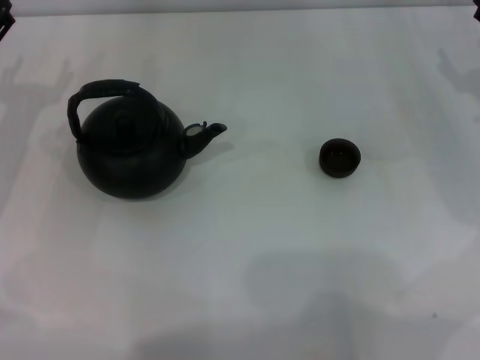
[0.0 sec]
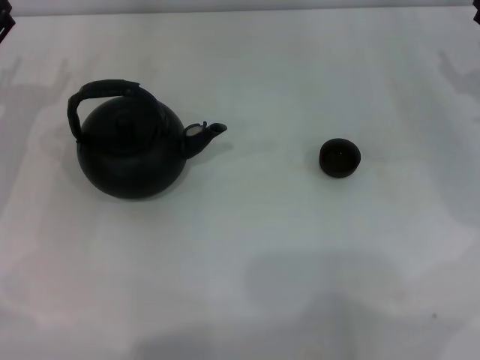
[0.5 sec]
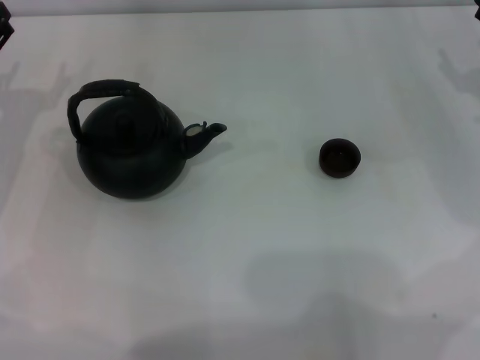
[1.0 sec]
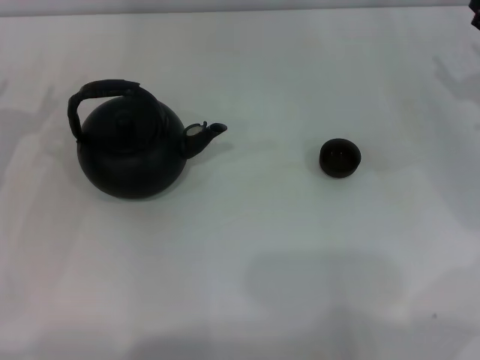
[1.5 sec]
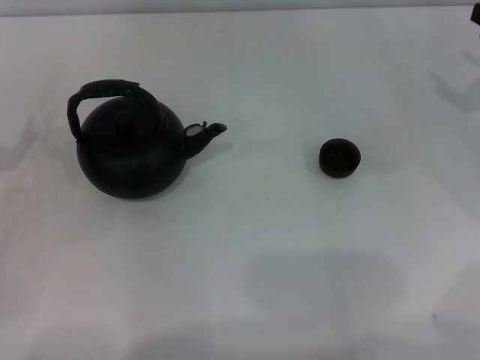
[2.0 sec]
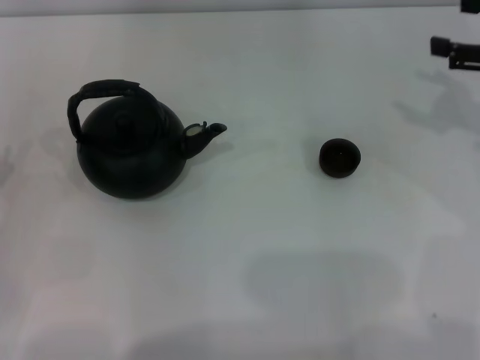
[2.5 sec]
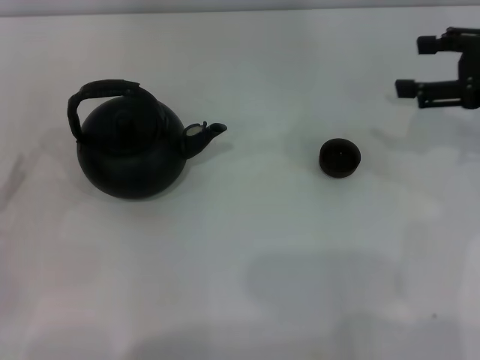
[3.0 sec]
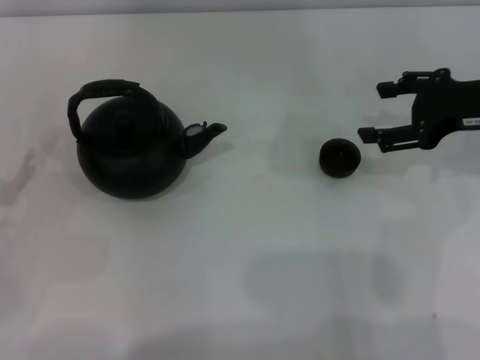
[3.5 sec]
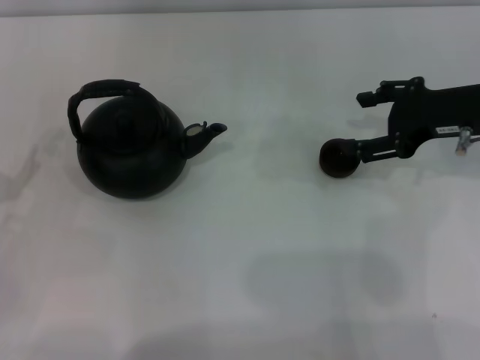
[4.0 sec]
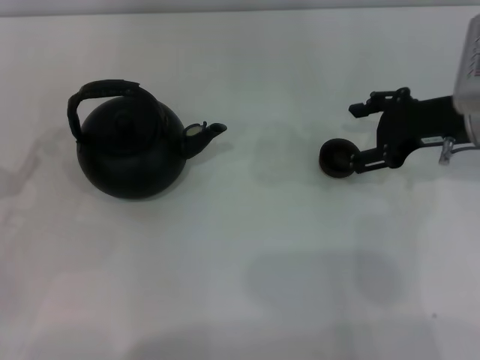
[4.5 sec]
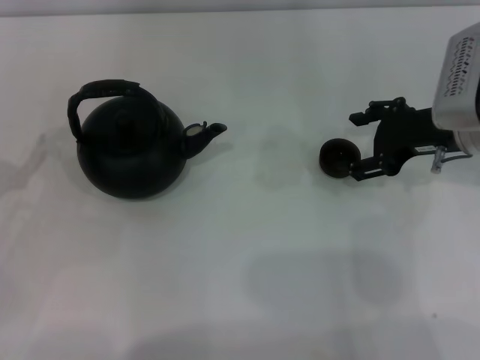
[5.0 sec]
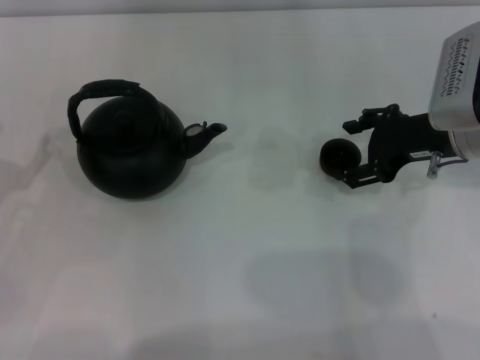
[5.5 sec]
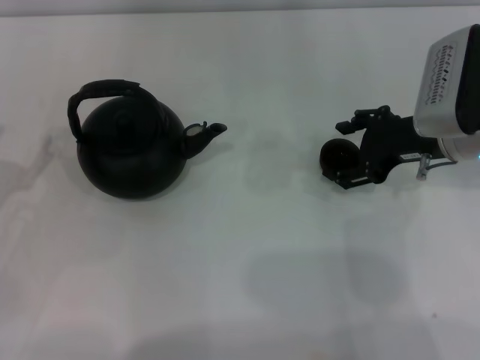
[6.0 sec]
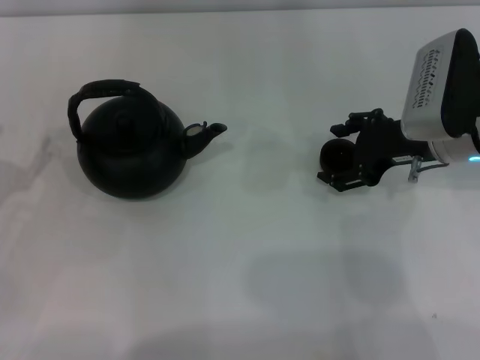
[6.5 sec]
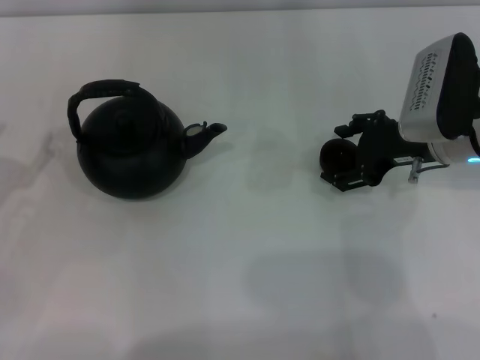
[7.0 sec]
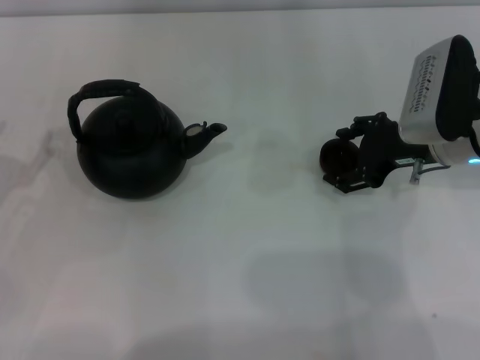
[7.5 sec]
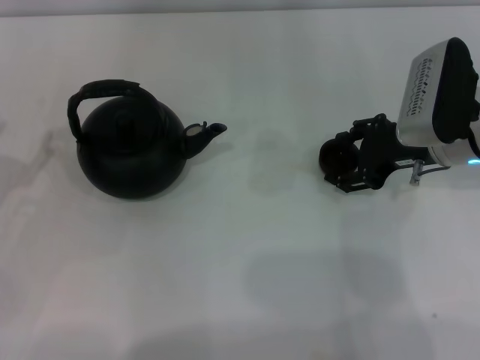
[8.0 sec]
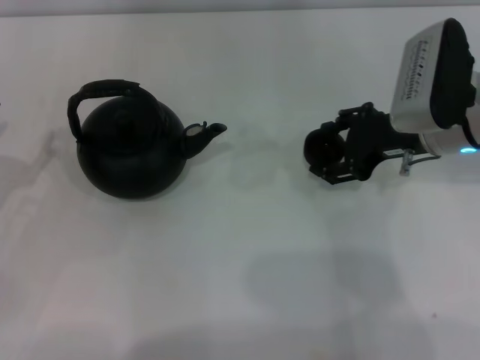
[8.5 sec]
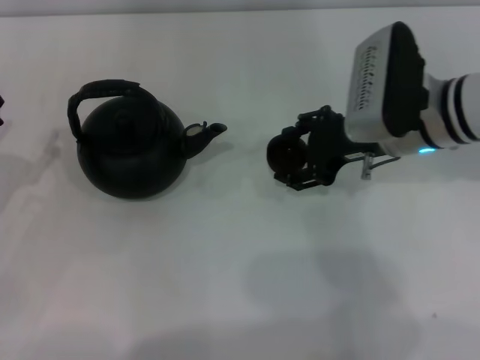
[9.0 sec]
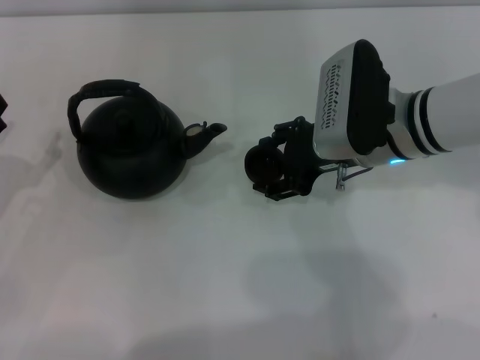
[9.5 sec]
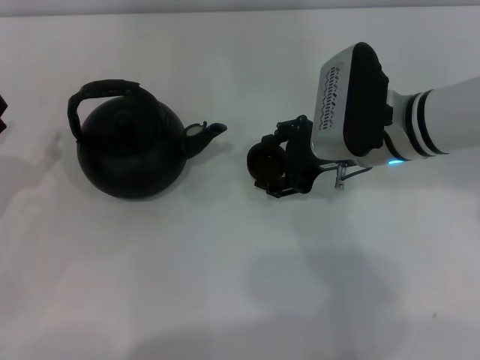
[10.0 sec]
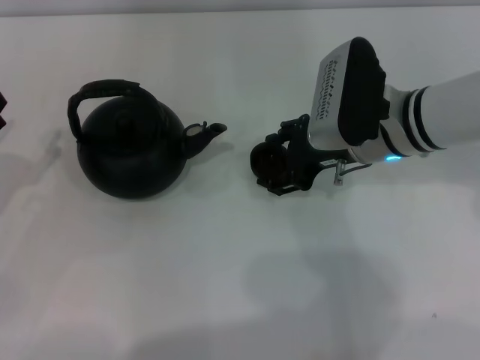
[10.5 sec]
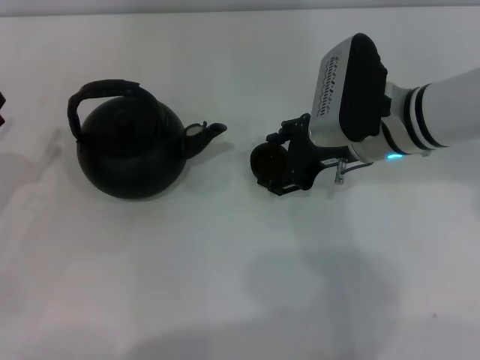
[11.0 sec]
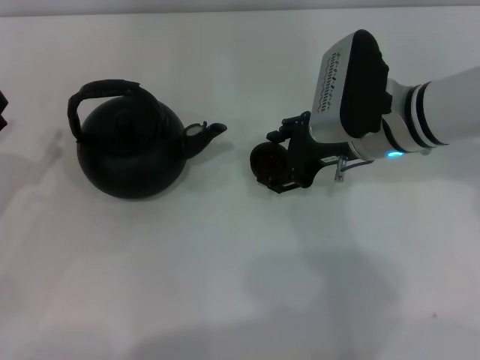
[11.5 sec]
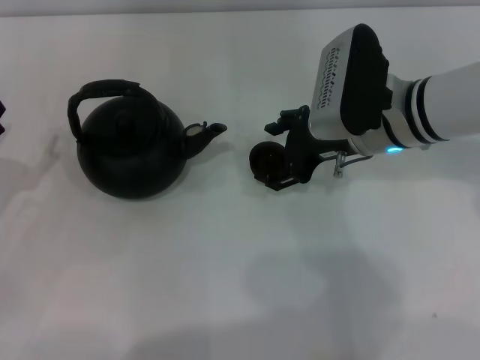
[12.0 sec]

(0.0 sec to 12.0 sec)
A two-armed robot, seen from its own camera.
Task of the whole recording: Grasp the handle of the teapot with one hand and pour tea into the teacup.
Step, 0.0 sec - 8.0 sec: Pick up the teacup with the right gripper.
2.0 sec - 4.0 sec: The right gripper heads to the left, covering approximately 10 cm.
4.0 sec - 8.0 sec: The grippers make only small movements.
8.0 sec - 10.0 sec: The right gripper travels to the left by roughly 10 cm.
10.0 sec - 12.0 sec: Neither gripper changes place.

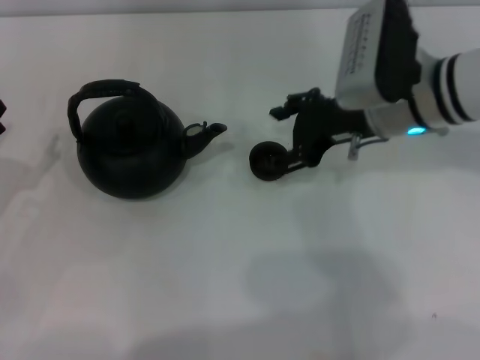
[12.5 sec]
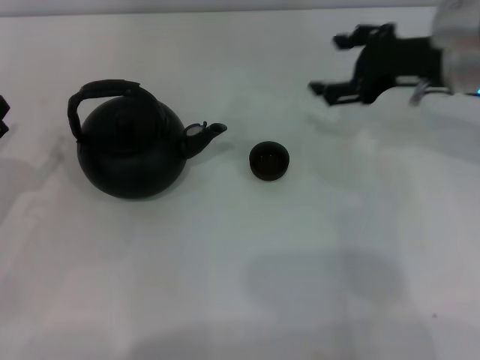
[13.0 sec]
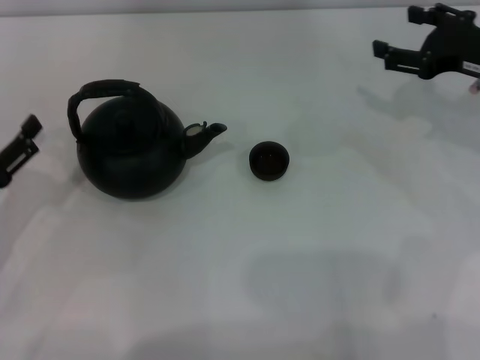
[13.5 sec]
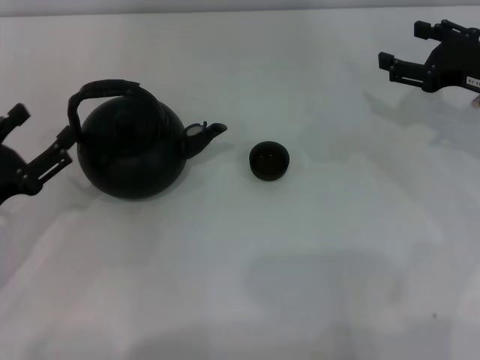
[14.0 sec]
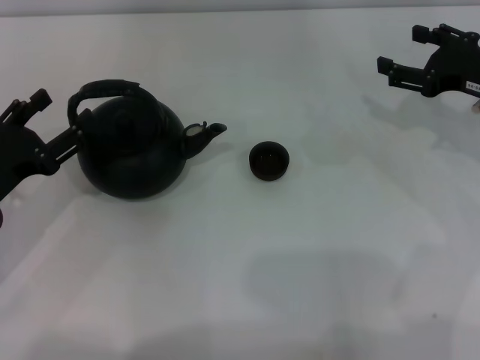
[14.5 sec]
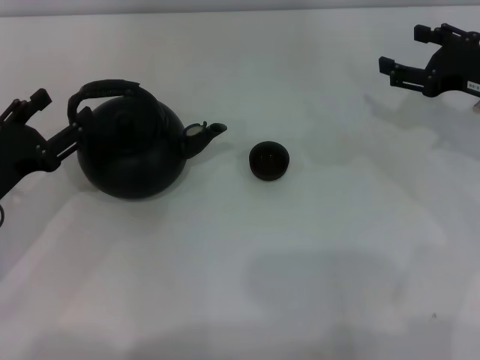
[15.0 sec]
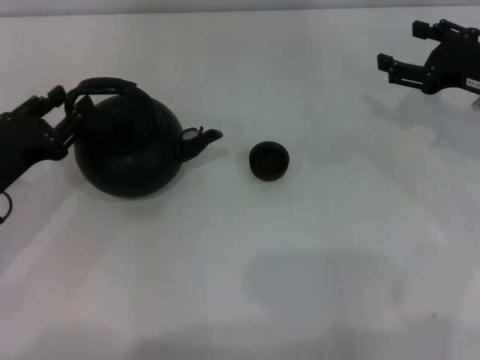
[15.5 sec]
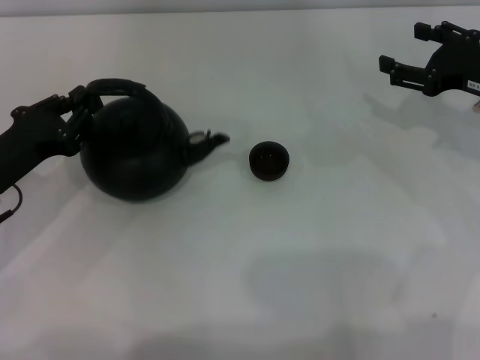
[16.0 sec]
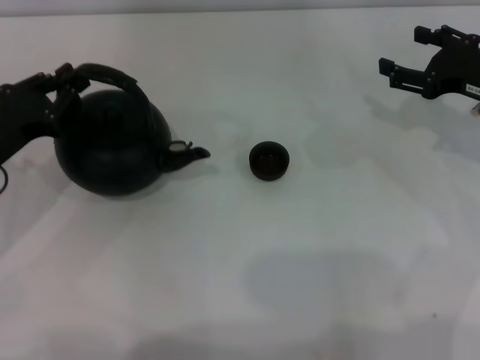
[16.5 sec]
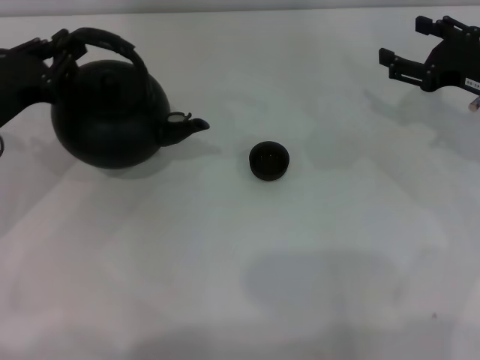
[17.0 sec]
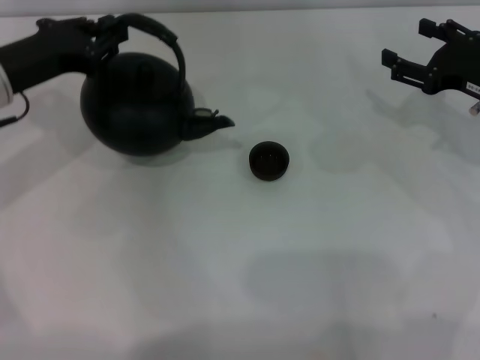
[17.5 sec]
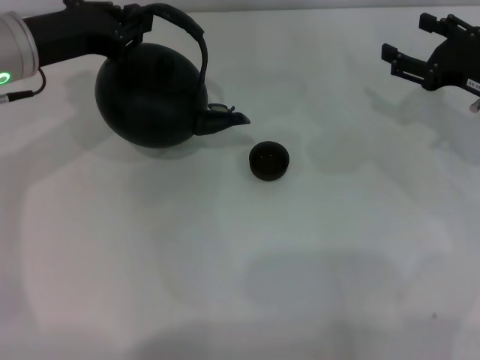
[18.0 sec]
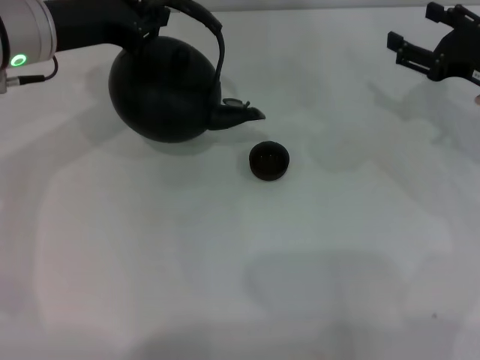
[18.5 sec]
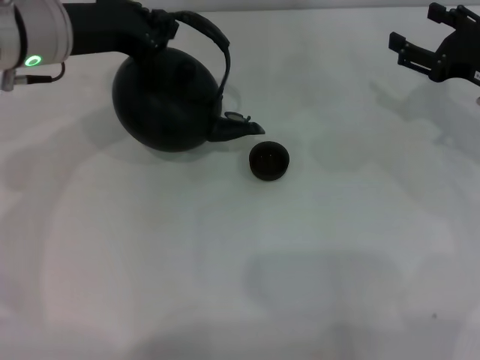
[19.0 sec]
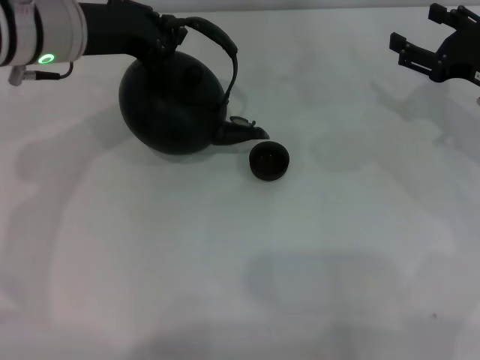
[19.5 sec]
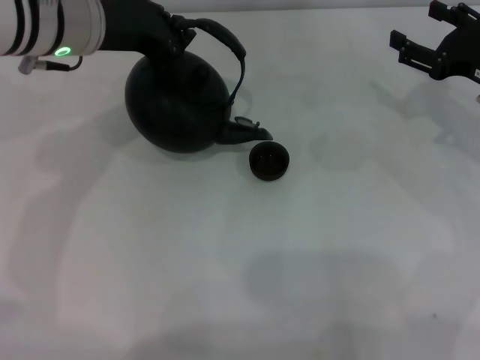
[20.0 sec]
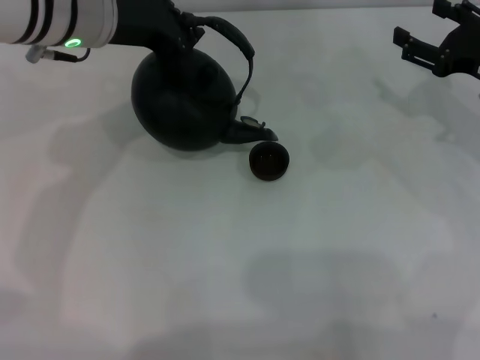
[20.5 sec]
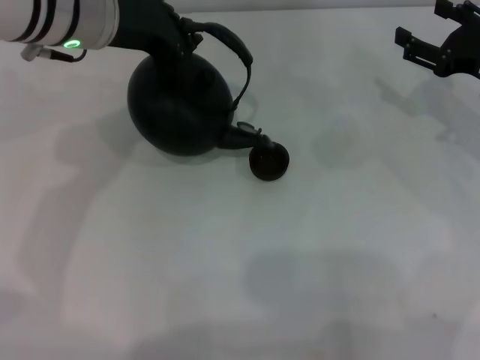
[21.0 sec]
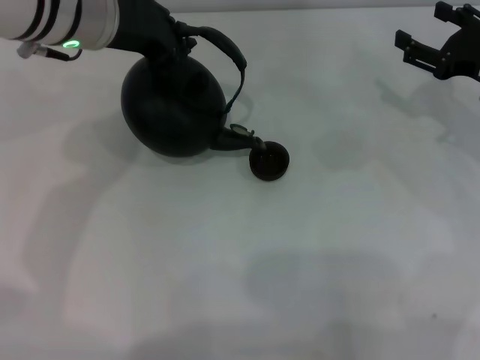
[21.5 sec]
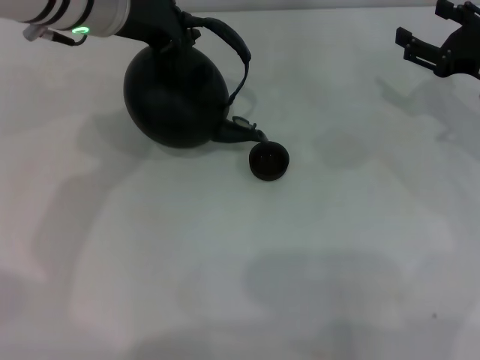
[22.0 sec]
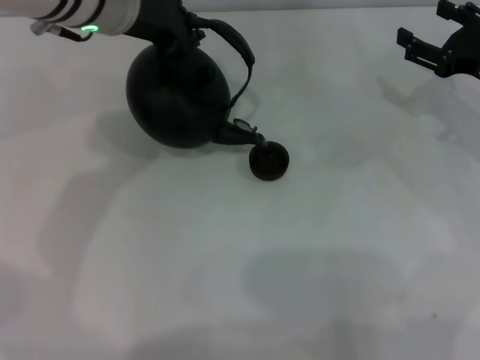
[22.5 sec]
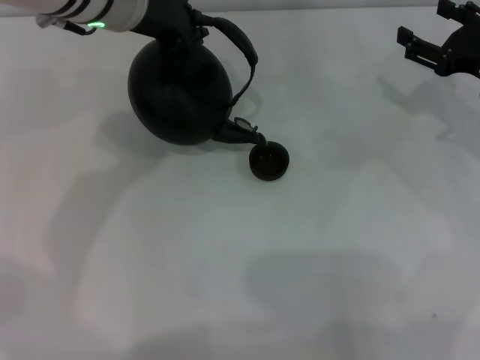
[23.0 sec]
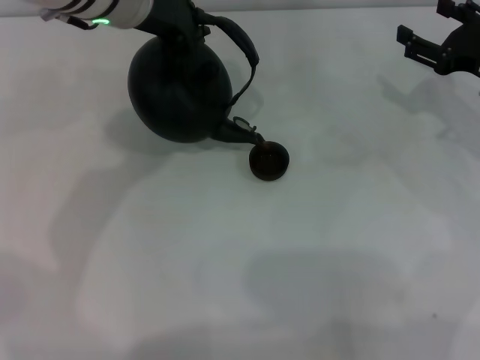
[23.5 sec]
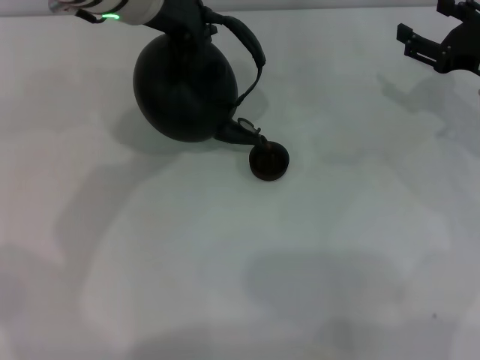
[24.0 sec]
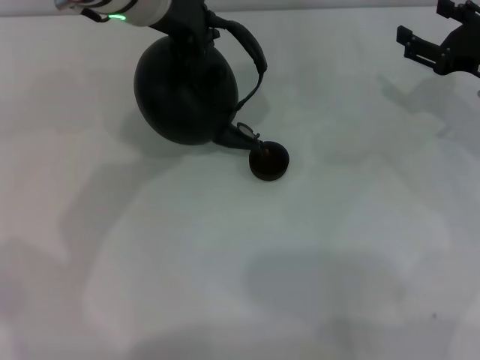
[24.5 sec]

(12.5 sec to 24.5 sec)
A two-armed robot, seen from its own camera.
Task of the whole recording: Grasp the handle of the teapot with one hand and pour tea into the teacup.
Step, 13.0 sec - 17.0 sec: Pick up the teapot with the left gripper.
12.5 sec - 14.5 sec: The right gripper moves to the right, roughly 15 cm.
14.5 sec - 16.5 sec: The left gripper closes its fingers.
16.5 sec - 18.5 sec: The left gripper travels upward, forward and to the right by approximately 15 cm.
18.5 sec - 20.5 sec: The left gripper moves to the right, about 5 cm.
20.5 sec - 22.5 sec: The grippers stay close to where they were, moving slightly.
22.5 sec - 24.5 sec: There are only small adjustments of the grippers.

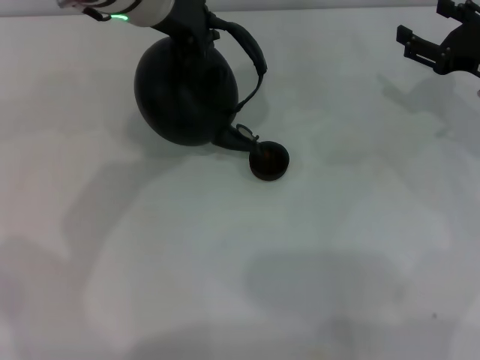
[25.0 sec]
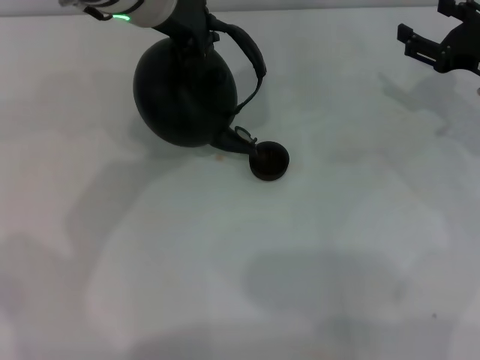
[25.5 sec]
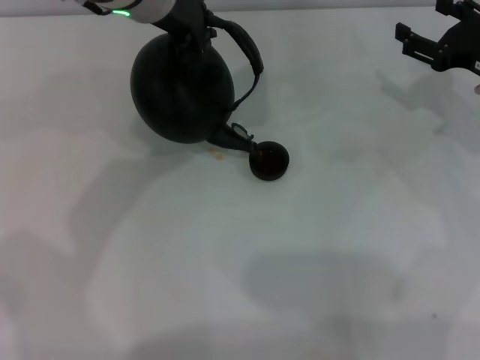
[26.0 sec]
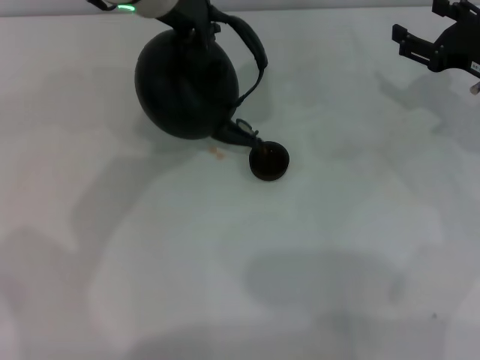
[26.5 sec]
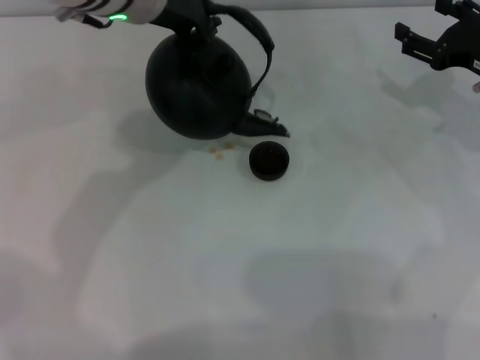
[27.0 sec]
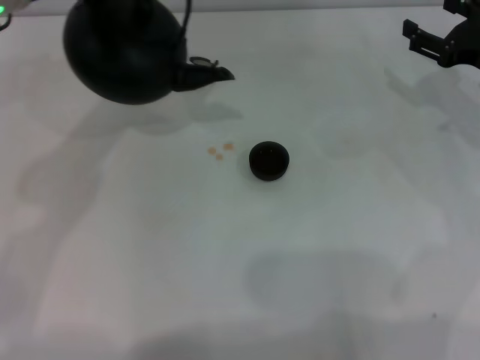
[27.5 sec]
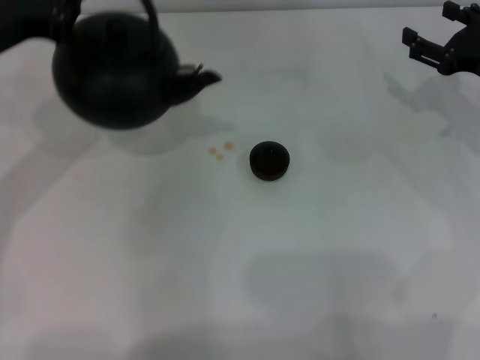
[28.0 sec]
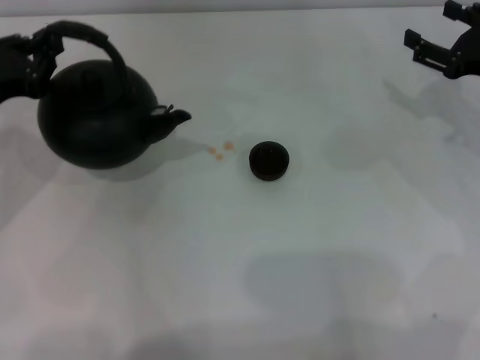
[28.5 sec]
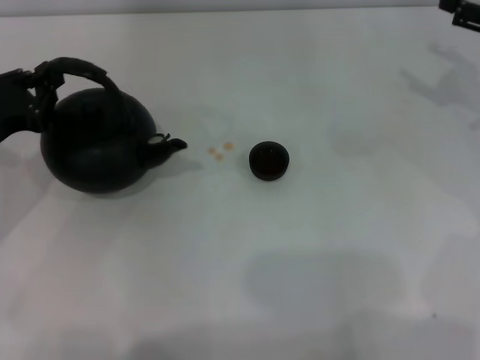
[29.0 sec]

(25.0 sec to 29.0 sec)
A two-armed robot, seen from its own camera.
Task of the whole recording: Grasp the handle of the teapot with one hand and pour tea into the teacup.
Step, 25.0 sec - 27.0 sec: Pour tea into the teacup with the left gripper.
25.0 sec - 27.0 sec: The grippers stay close to where they were, moving slightly.
27.0 sec - 29.0 sec: The left gripper shifts approximately 25 cm to the left, downward and backward; the right gripper goes about 5 cm upward.
